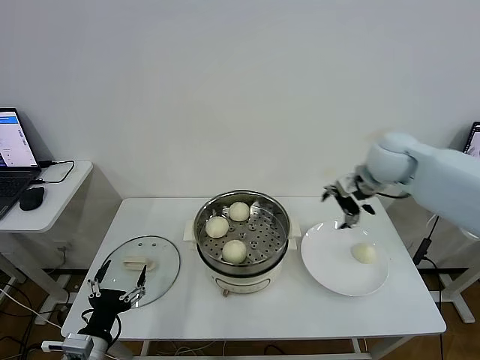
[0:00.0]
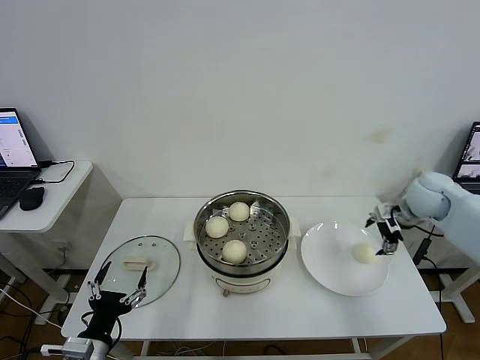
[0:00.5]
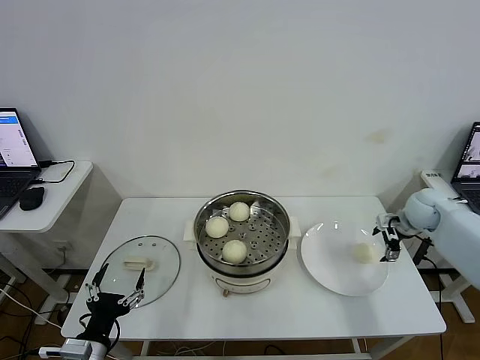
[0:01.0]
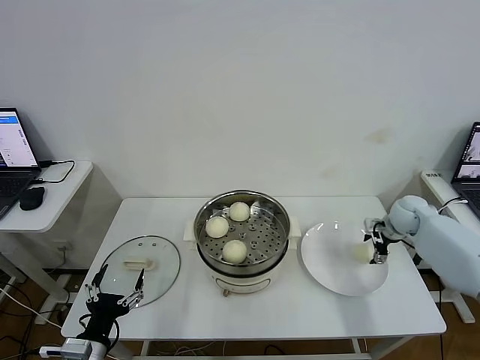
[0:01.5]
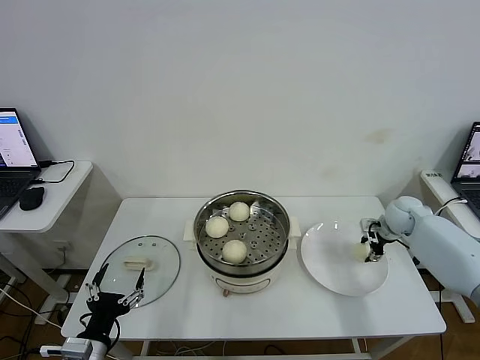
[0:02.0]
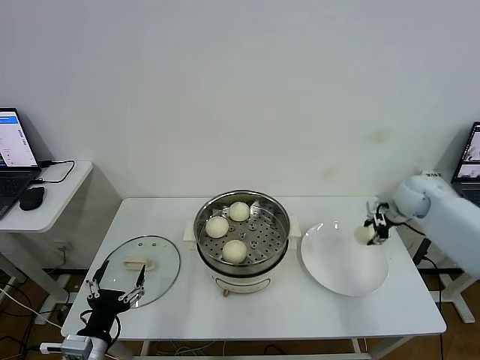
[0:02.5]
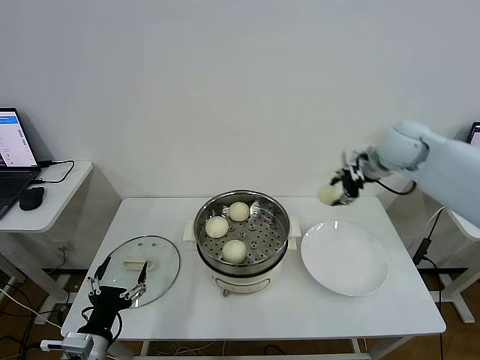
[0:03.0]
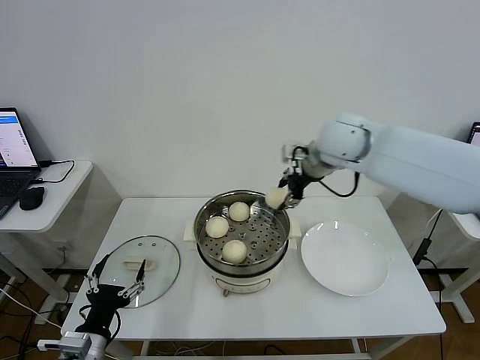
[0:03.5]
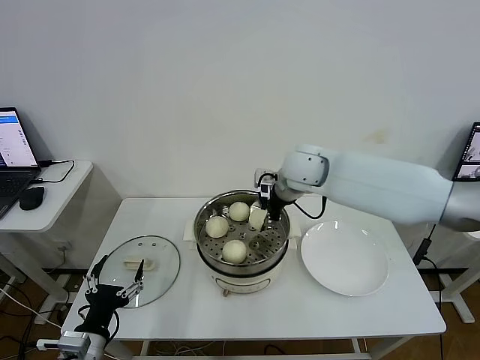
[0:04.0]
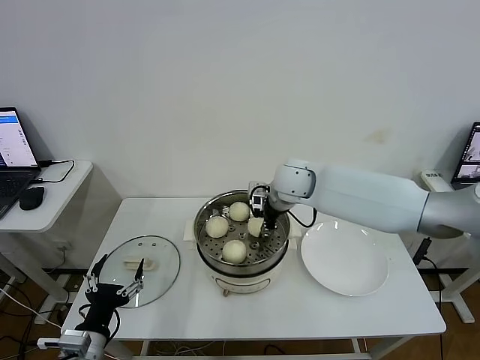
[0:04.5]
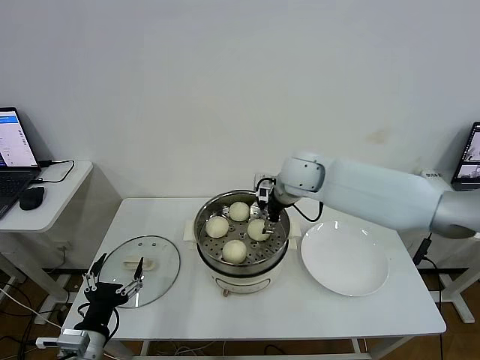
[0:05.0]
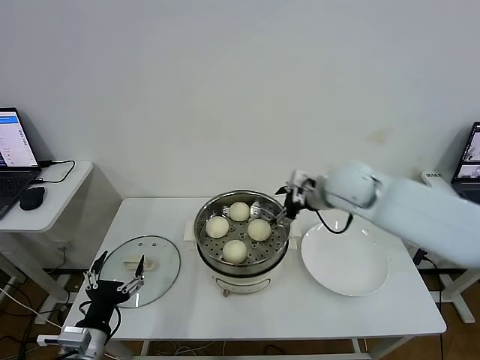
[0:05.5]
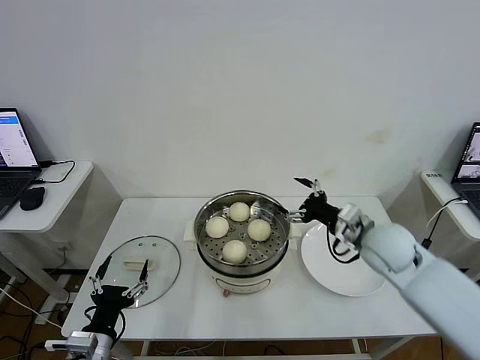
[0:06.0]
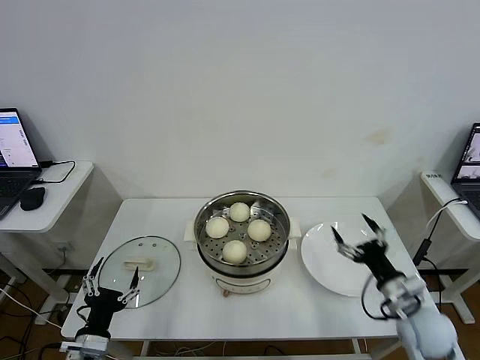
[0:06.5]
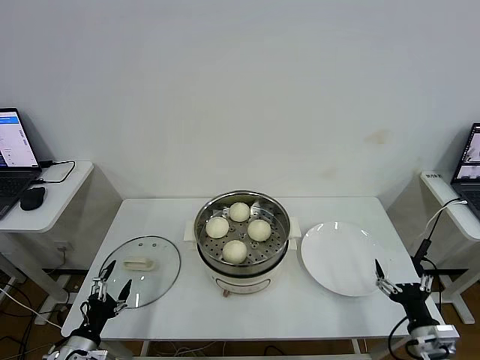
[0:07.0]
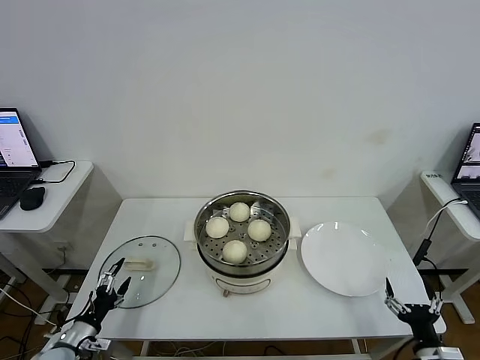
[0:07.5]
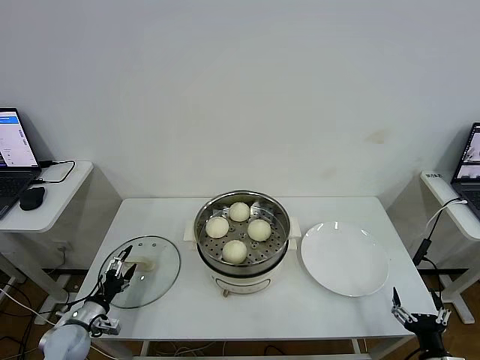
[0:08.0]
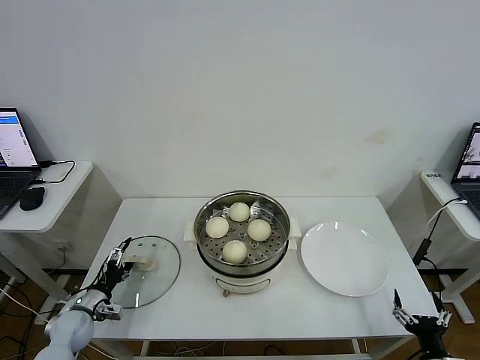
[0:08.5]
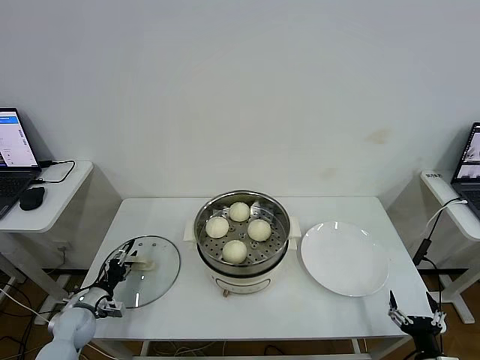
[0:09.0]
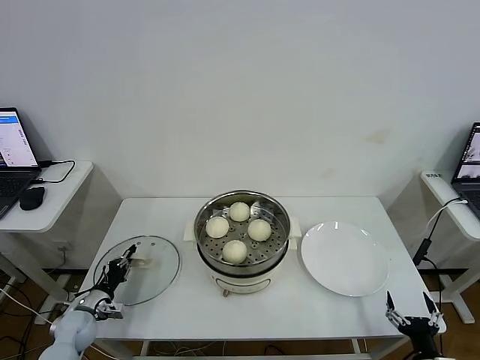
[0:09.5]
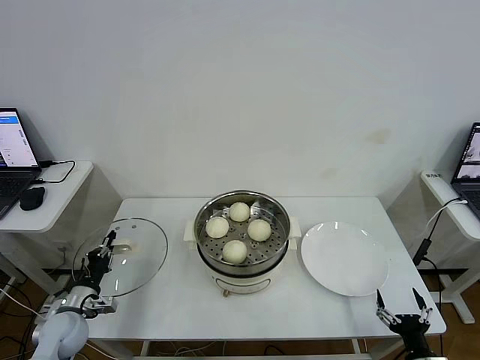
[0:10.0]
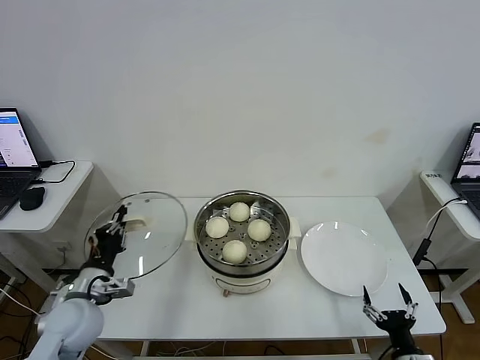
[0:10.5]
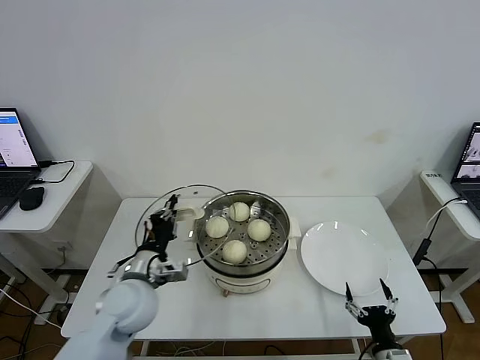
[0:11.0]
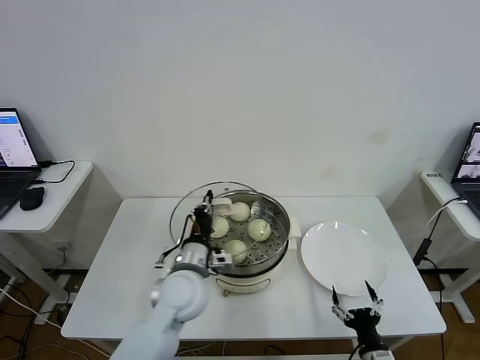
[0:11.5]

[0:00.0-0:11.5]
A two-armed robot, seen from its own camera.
Step, 0:00.0 to 0:02.0: Grasp the baozi in the plate with right gripper.
Step, 0:02.5 to 0:05.0: Place the baozi on the steamer with right gripper.
Step, 0:05.5 to 0:09.5: Grasp the pot lid with left gripper.
0:00.0 to 0:02.0: The right gripper moves downward and to the right, about 25 cm, and closes up.
0:02.0 to 0:04.0: The right gripper travels to the left and upward by approximately 35 cm.
0:04.0 to 0:06.0: The right gripper heads to the right, backward and downward, covering roughly 25 cm, and opens.
0:06.0 to 0:07.5: The right gripper travels backward, downward and to the right by some 35 cm; the left gripper goes about 15 cm to the left, downward and forward.
0:07.5 to 0:09.5: The left gripper moves forward, roughly 10 cm, and closes up.
0:09.5 to 0:11.5: The right gripper heads to the left, covering roughly 10 cm, while the left gripper shifts roughly 35 cm to the right and upward.

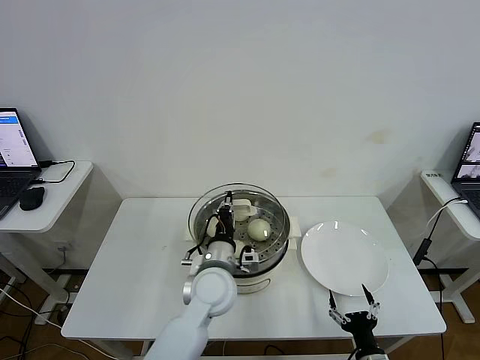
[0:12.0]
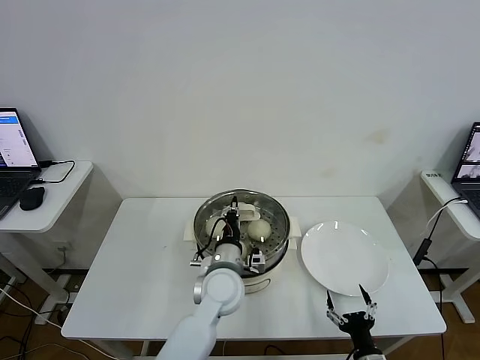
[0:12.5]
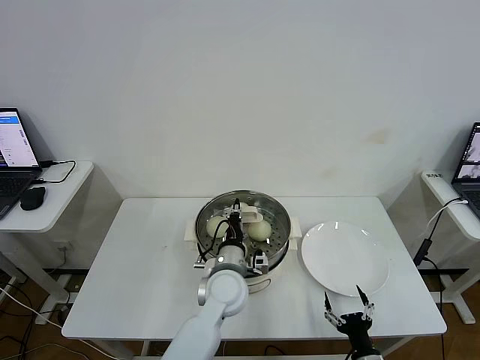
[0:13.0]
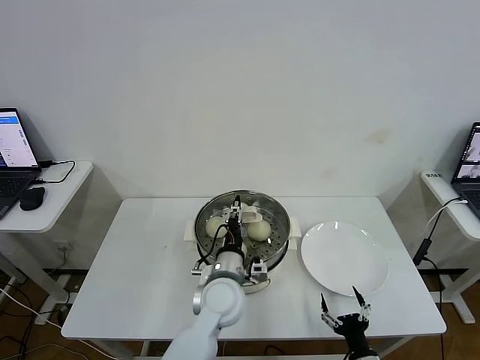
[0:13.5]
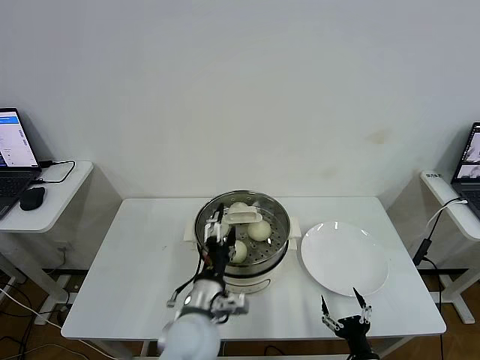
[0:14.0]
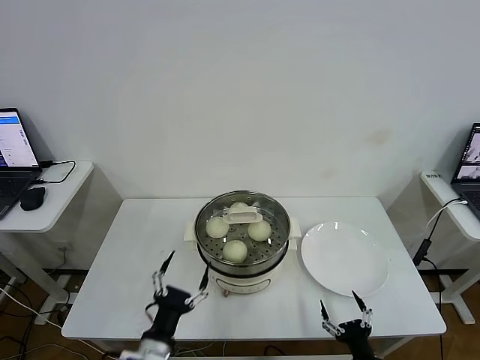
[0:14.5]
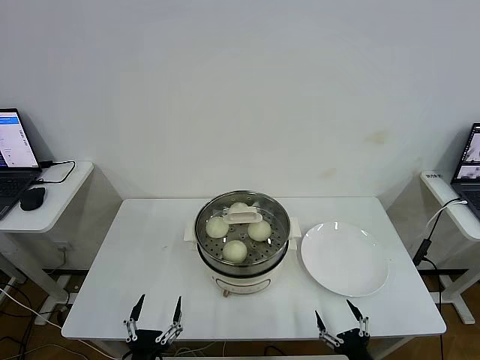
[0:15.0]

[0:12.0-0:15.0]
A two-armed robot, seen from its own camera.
Step, 0:12.0 to 0:14.0: Place the pot lid on the steamer with left gripper.
0:12.0 to 0:13.5: The left gripper opens.
0:13.5 to 0:15.0: The left gripper heads backward and to the left, covering about 30 cm, and opens. Meanwhile the right gripper changes place by some 5 cm.

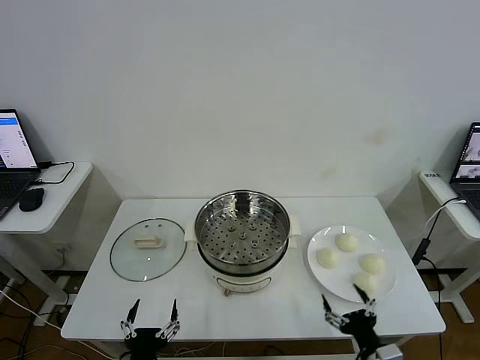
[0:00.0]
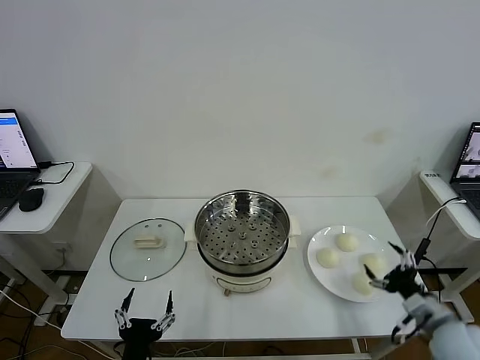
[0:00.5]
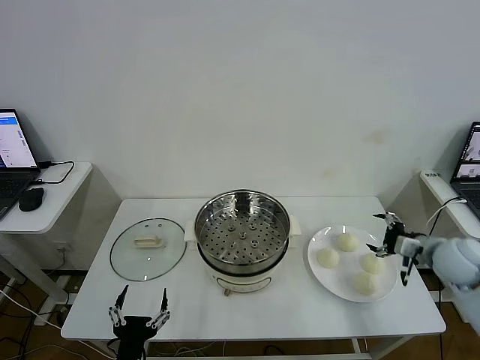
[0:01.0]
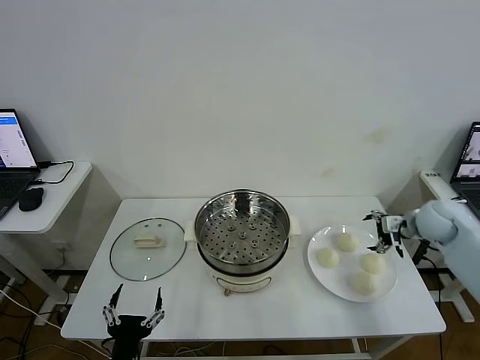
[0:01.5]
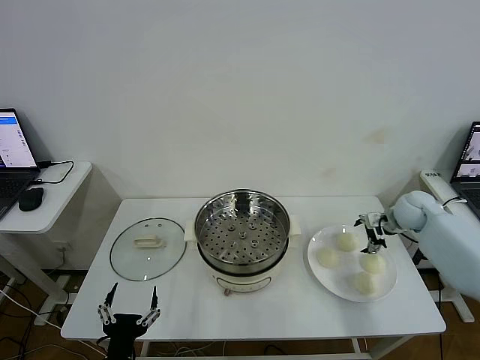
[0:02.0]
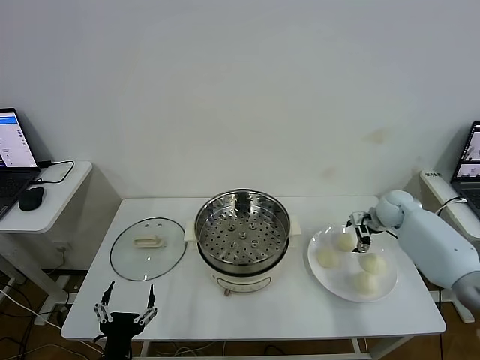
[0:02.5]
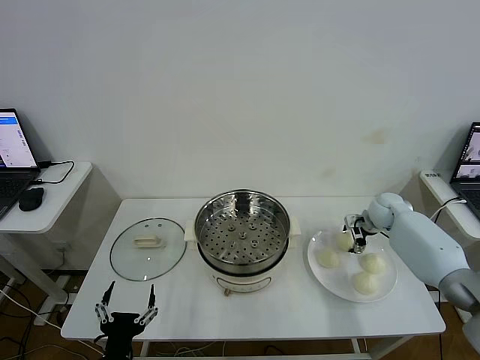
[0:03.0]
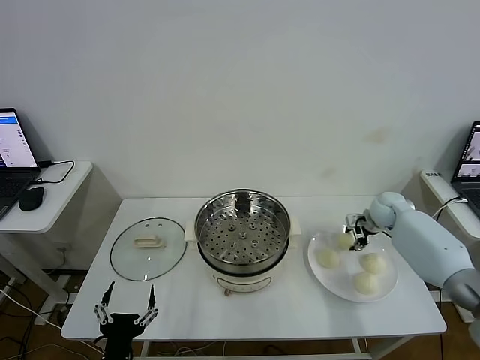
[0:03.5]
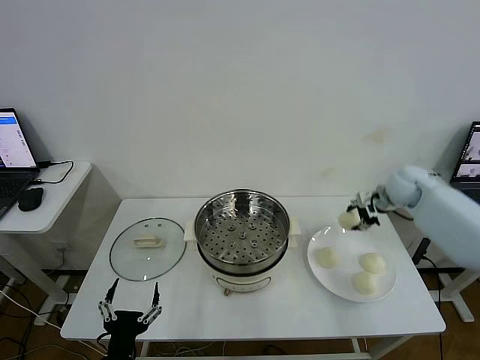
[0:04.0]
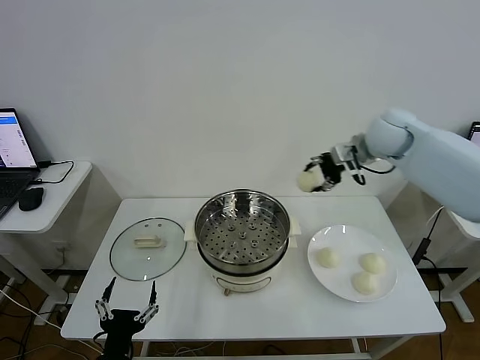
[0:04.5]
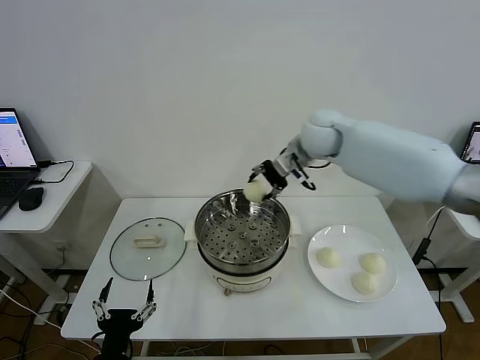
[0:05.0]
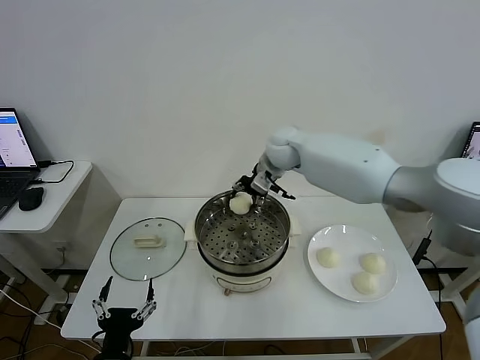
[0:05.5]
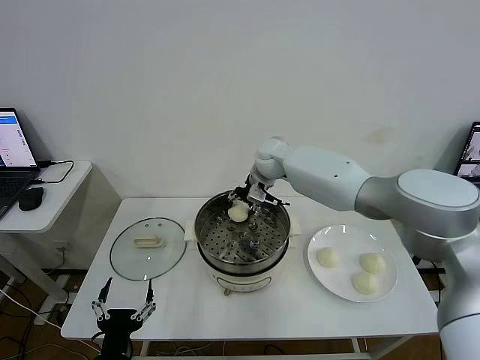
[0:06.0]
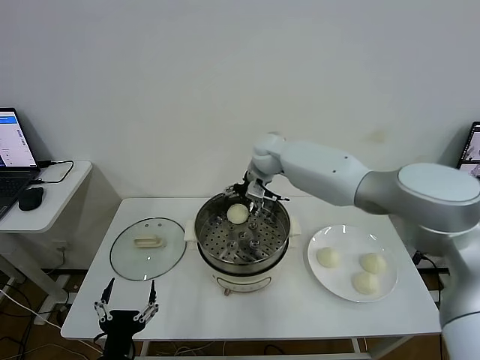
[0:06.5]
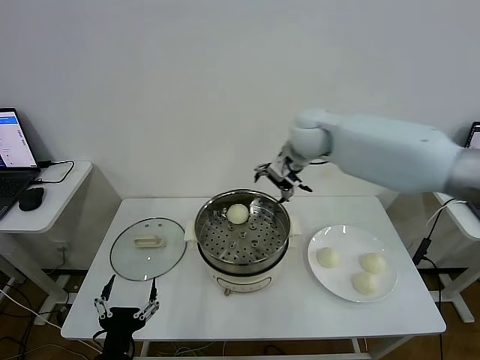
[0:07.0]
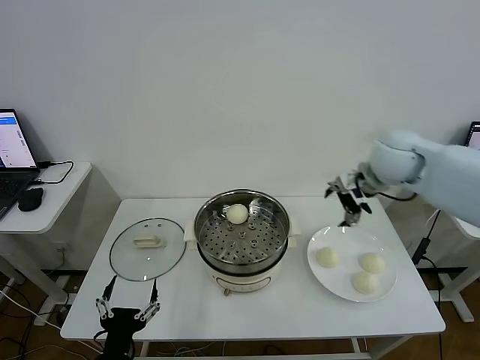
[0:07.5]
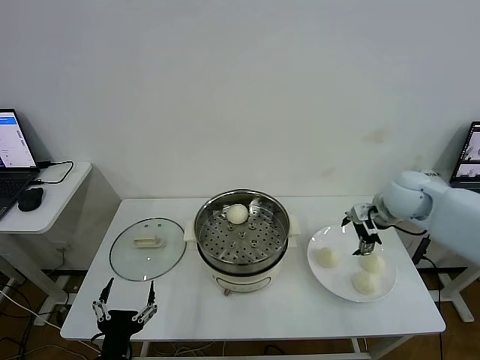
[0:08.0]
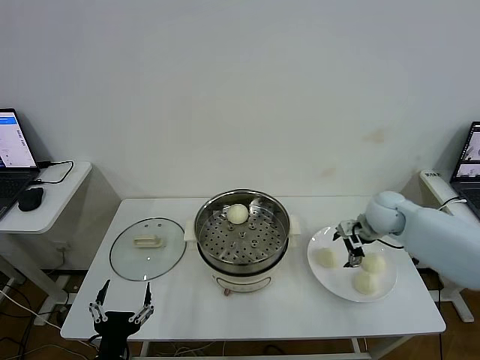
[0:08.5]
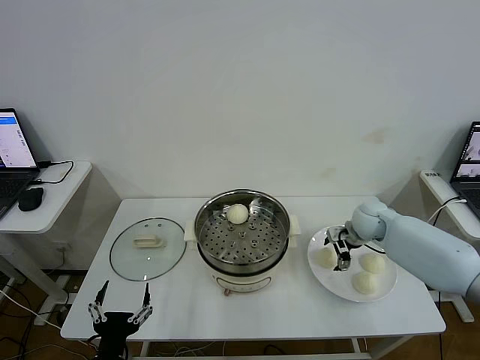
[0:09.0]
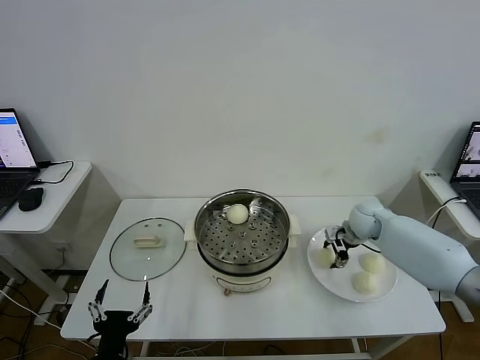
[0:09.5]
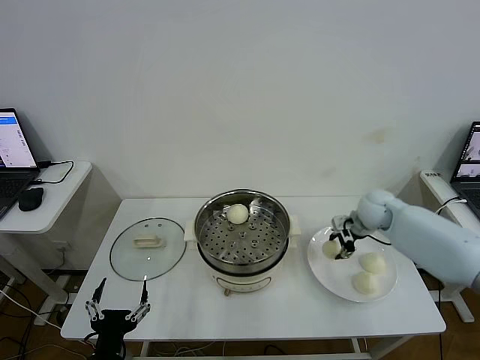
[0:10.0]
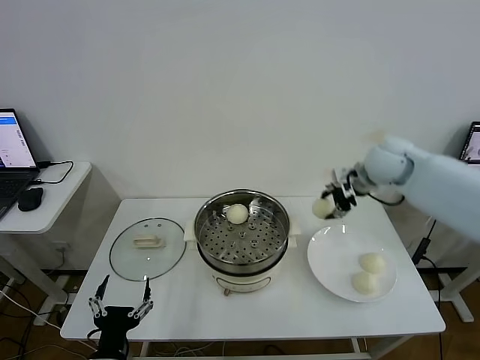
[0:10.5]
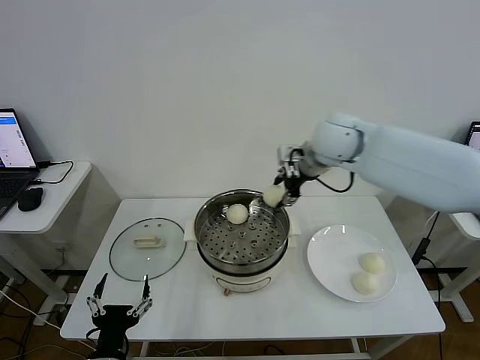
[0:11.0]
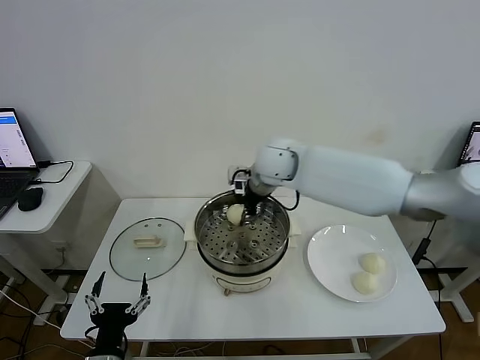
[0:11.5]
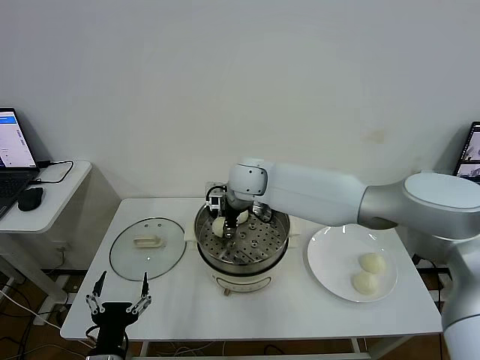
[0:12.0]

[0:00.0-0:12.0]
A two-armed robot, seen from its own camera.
Step, 0:00.0 to 0:03.0: Grasp the baozi in the plate with right gripper.
Step, 0:03.5 to 0:06.5: Place the baozi on the steamer with right gripper.
Step, 0:07.0 to 0:09.5: Grasp the baozi in the plate with right gripper.
0:02.0 to 0:04.0: The right gripper is displaced upward by about 15 cm, and closes.
0:04.0 to 0:06.0: The right gripper goes approximately 30 cm to the left.
0:06.0 to 0:08.0: The right gripper heads to the right and backward, covering about 30 cm, and opens up.
0:08.0 to 0:10.0: The right gripper moves downward, roughly 5 cm, and closes its fingers.
0:10.0 to 0:12.0: The right gripper heads to the left, covering about 35 cm.
